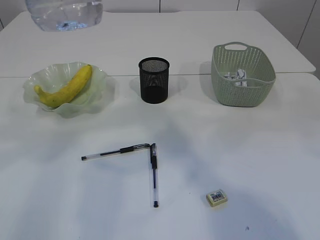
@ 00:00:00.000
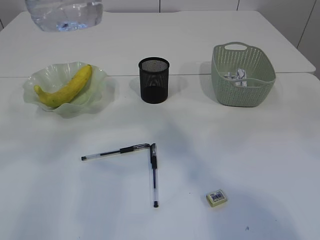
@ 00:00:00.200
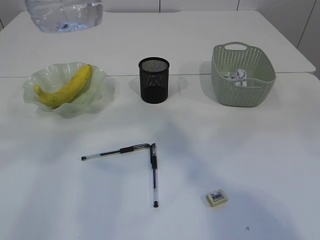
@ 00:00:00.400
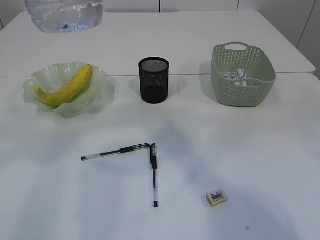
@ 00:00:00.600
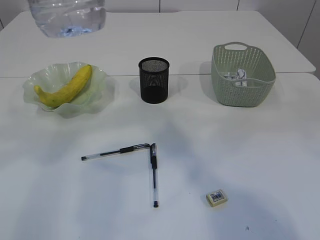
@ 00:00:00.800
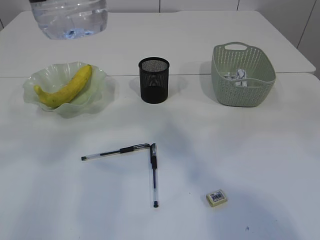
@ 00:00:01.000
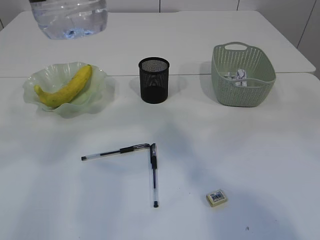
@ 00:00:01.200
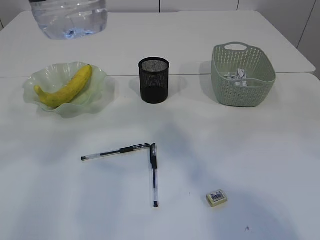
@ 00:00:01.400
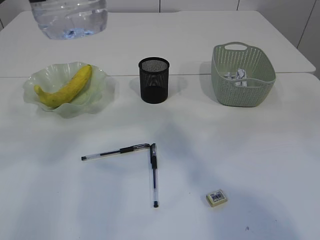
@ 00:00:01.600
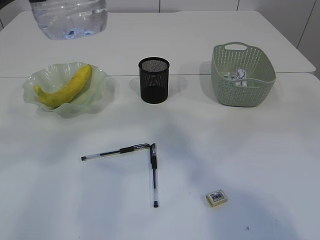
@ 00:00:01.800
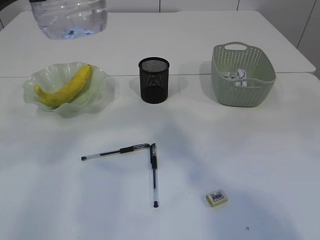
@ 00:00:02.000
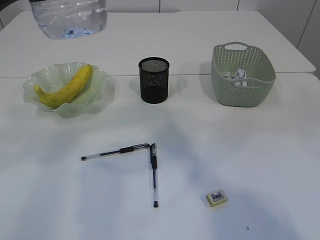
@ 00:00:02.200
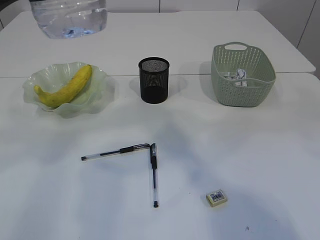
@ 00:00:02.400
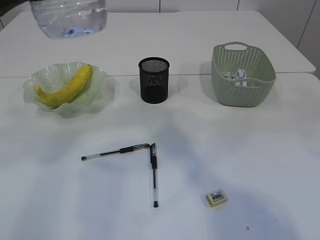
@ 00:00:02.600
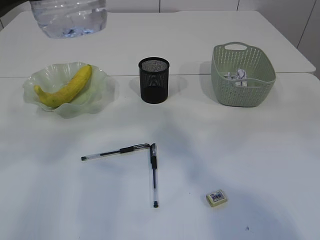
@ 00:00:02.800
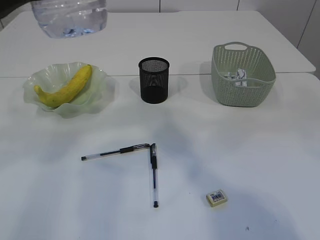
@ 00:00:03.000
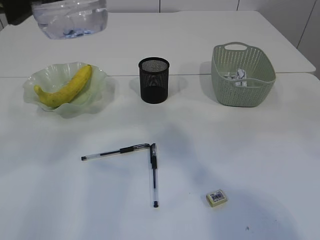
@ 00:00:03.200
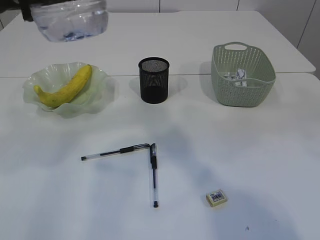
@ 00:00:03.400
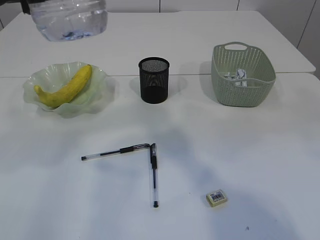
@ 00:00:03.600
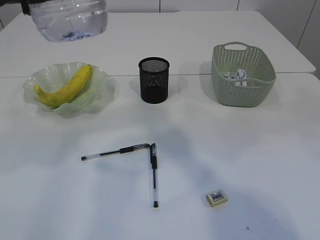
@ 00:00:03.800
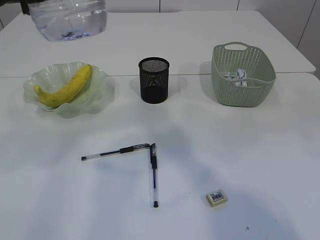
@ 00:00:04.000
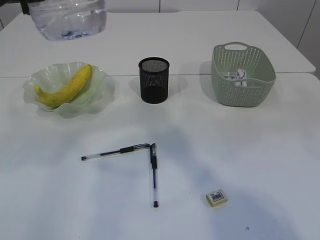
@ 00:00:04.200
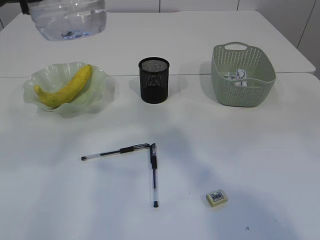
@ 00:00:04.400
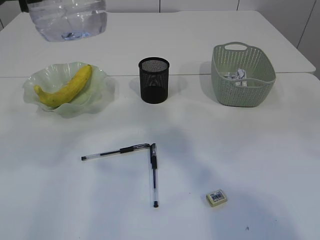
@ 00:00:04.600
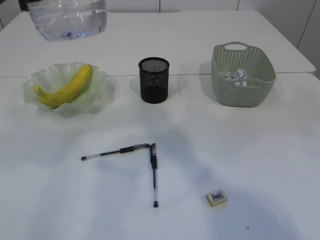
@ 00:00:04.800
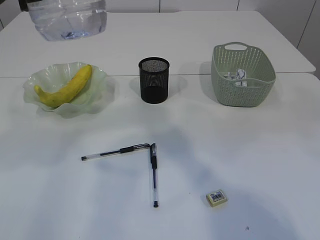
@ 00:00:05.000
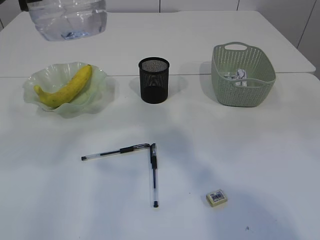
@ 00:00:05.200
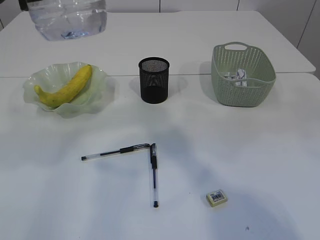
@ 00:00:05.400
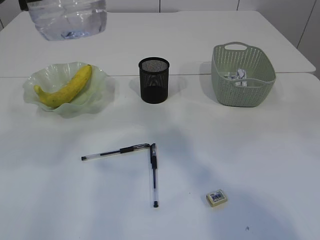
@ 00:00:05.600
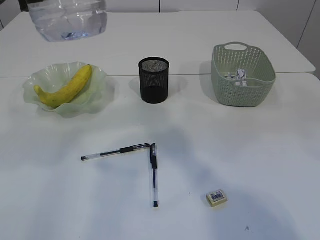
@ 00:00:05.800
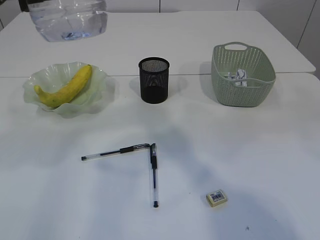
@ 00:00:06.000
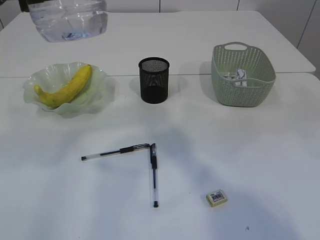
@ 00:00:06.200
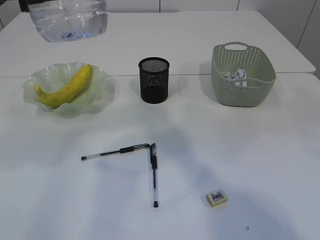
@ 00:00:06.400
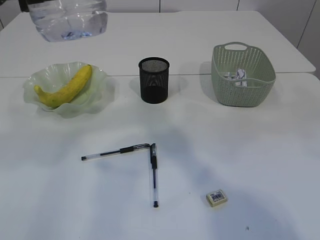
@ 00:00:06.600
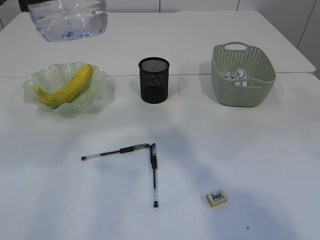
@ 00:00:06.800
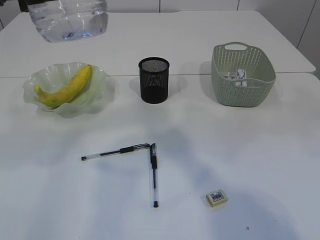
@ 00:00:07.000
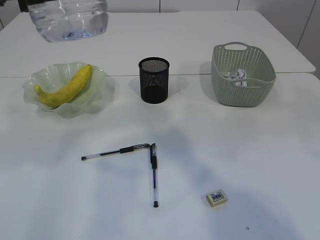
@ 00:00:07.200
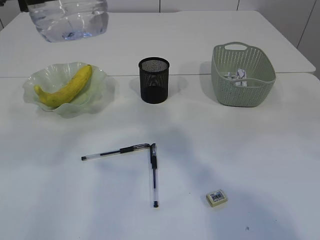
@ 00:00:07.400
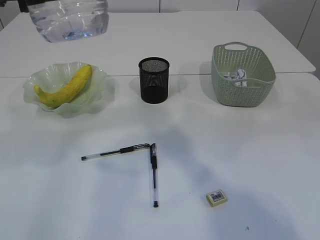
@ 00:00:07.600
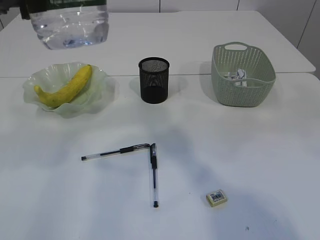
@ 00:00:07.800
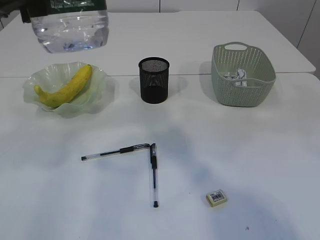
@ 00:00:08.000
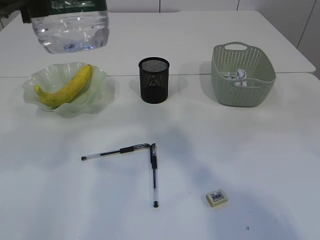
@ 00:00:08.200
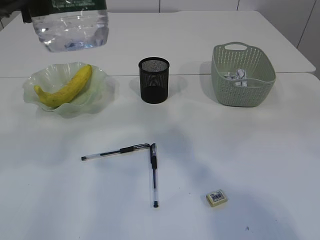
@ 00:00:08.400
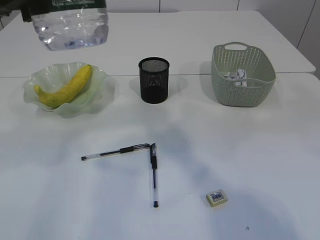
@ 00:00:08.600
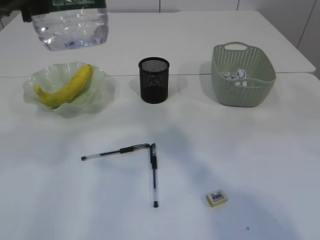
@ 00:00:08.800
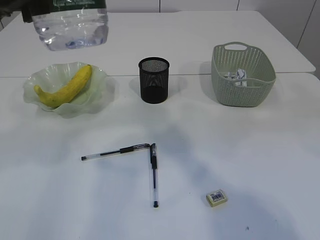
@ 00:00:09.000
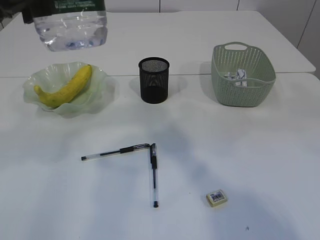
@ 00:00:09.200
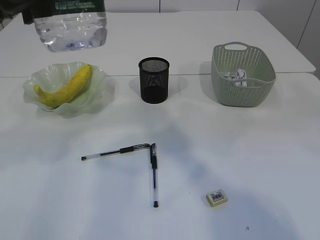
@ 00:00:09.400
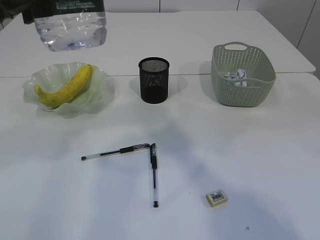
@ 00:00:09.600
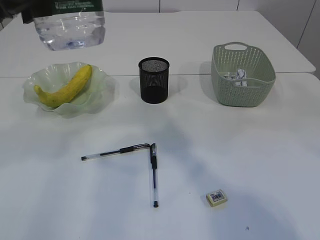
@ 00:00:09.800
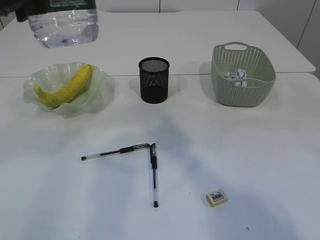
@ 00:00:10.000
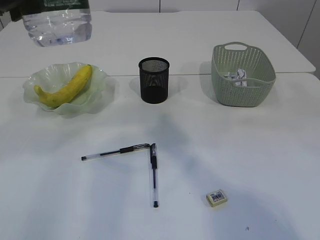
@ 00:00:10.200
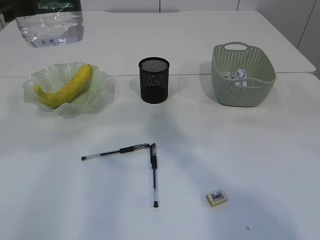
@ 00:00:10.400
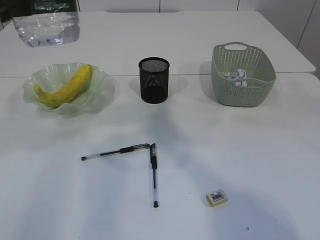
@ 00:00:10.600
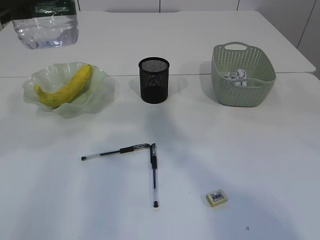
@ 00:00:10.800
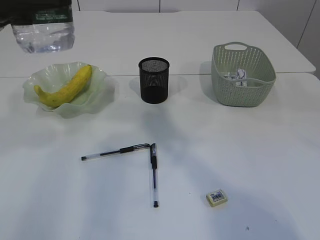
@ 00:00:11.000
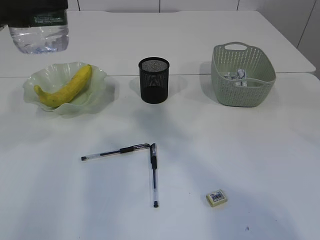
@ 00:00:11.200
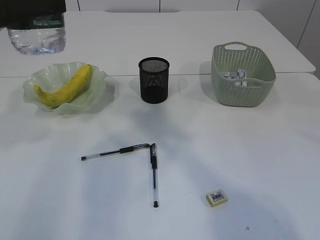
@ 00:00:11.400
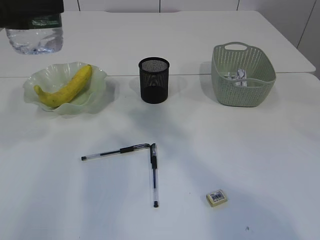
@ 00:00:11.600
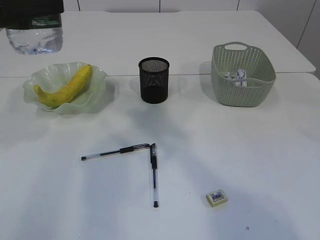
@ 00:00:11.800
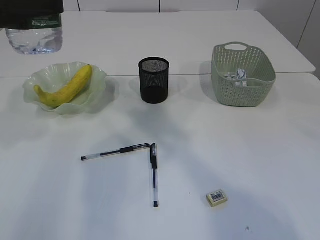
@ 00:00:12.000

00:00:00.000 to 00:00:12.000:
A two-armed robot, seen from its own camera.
Step, 00:00:00.000 to 00:00:10.600: transfer the bottle to the left arm.
00:00:01.600 to 00:00:03.000: Neither gripper changes place.
00:00:04.400 to 00:00:07.600: The two grippers keep their place.
00:00:07.600 to 00:00:10.400: The grippers make only small movements.

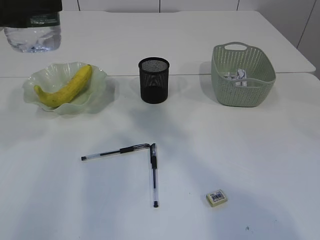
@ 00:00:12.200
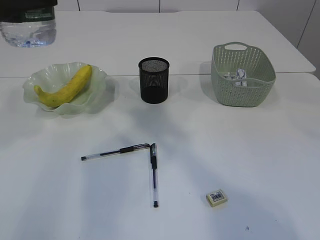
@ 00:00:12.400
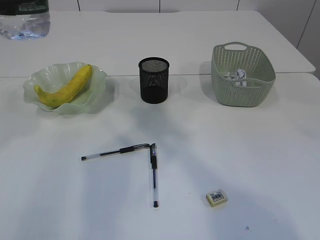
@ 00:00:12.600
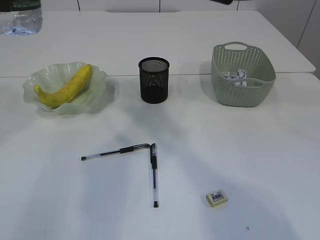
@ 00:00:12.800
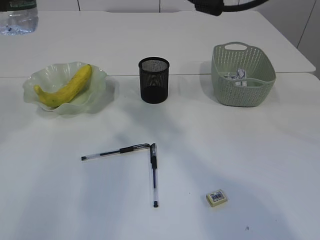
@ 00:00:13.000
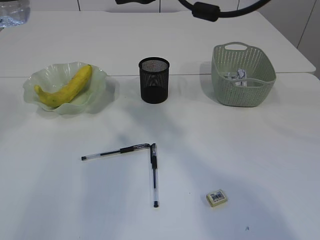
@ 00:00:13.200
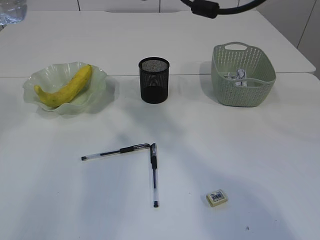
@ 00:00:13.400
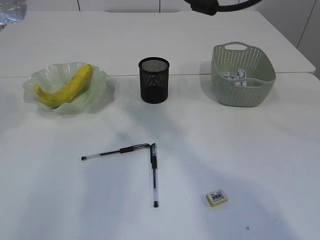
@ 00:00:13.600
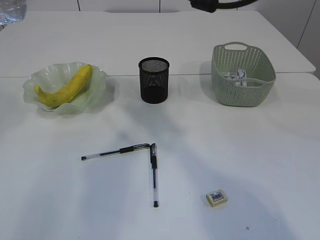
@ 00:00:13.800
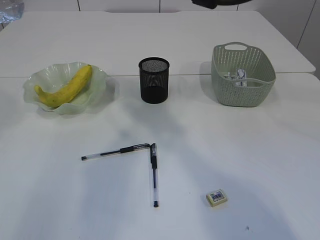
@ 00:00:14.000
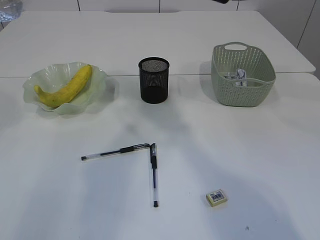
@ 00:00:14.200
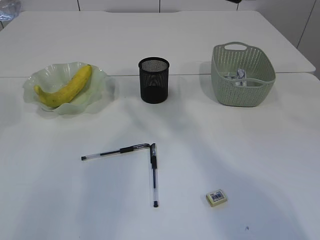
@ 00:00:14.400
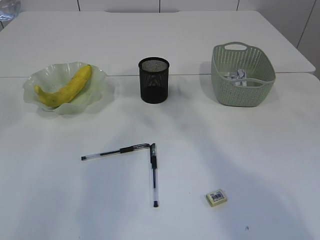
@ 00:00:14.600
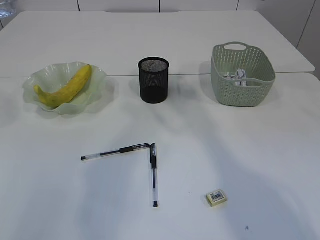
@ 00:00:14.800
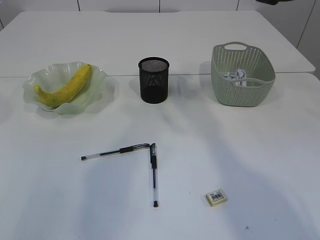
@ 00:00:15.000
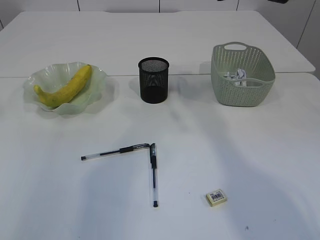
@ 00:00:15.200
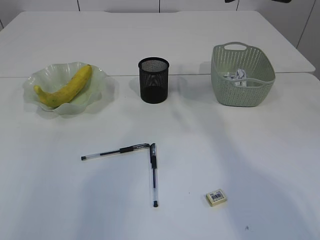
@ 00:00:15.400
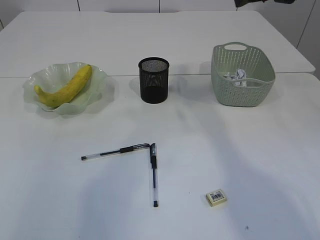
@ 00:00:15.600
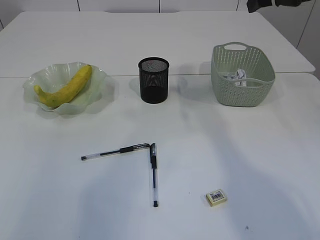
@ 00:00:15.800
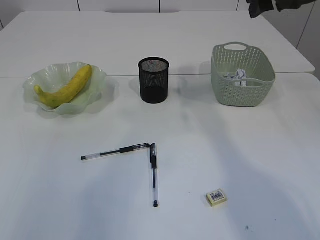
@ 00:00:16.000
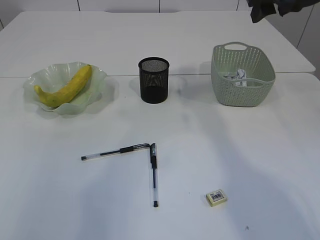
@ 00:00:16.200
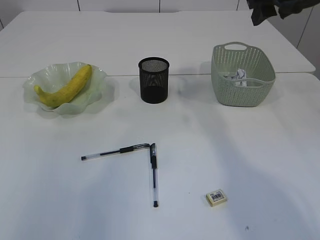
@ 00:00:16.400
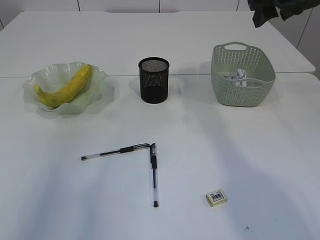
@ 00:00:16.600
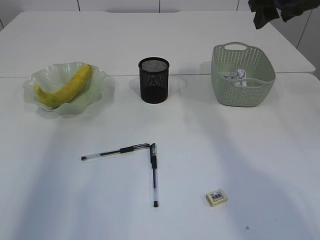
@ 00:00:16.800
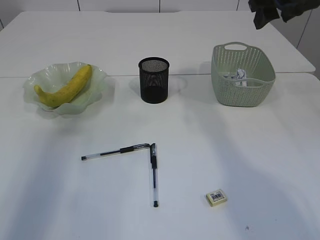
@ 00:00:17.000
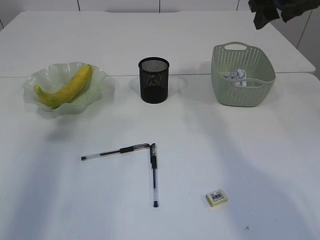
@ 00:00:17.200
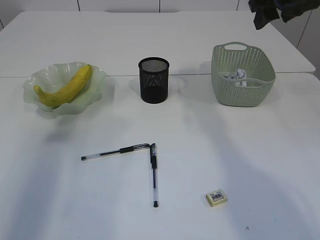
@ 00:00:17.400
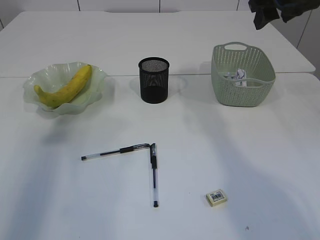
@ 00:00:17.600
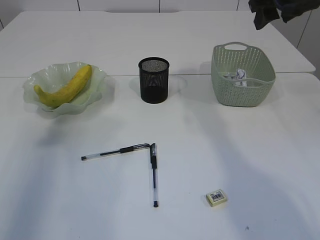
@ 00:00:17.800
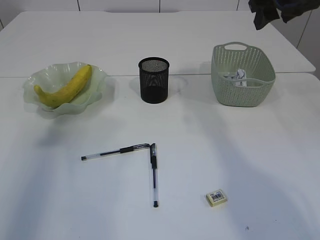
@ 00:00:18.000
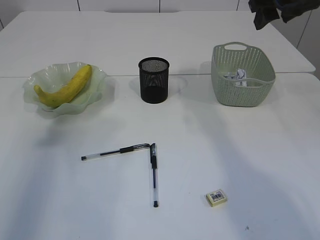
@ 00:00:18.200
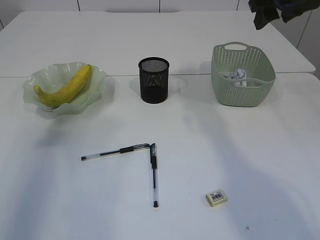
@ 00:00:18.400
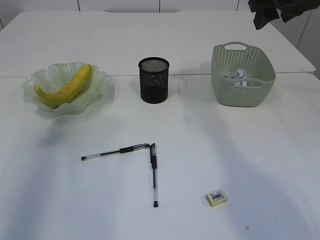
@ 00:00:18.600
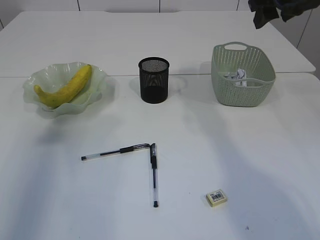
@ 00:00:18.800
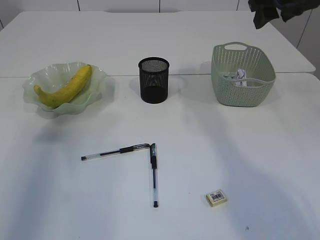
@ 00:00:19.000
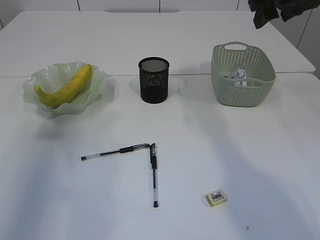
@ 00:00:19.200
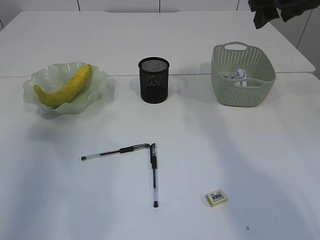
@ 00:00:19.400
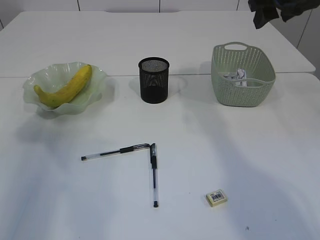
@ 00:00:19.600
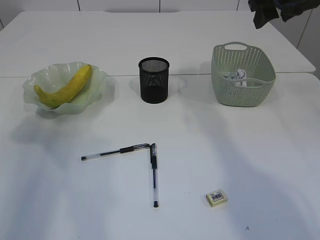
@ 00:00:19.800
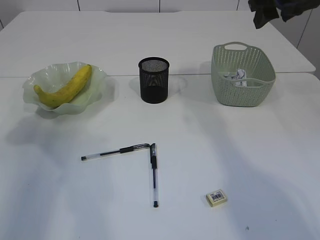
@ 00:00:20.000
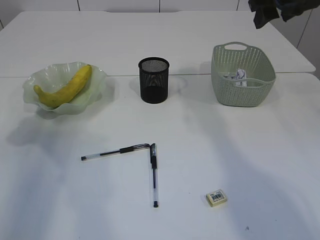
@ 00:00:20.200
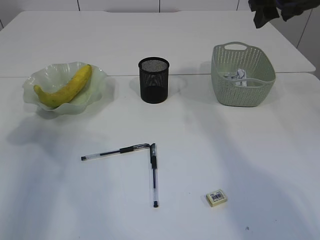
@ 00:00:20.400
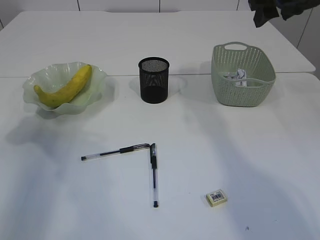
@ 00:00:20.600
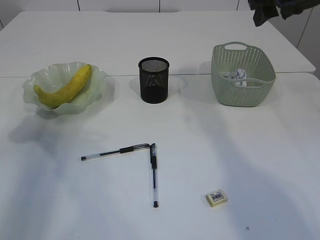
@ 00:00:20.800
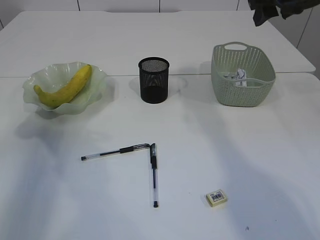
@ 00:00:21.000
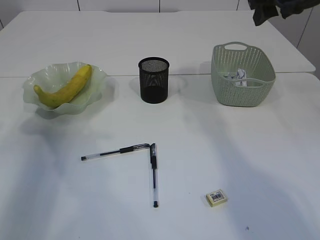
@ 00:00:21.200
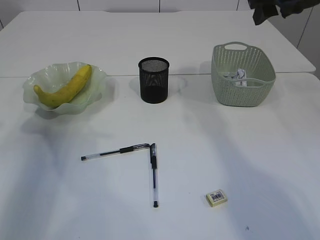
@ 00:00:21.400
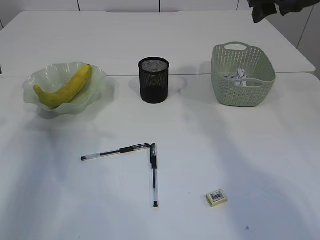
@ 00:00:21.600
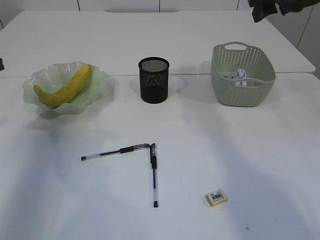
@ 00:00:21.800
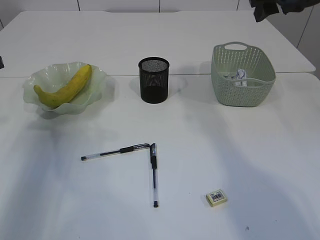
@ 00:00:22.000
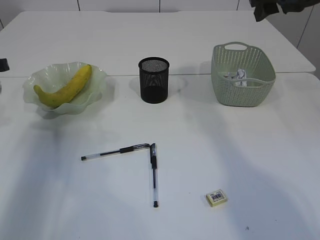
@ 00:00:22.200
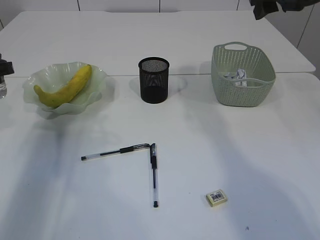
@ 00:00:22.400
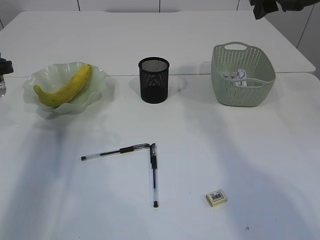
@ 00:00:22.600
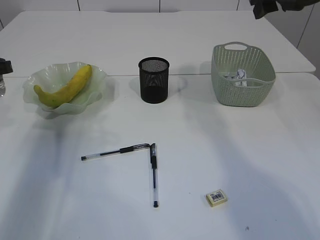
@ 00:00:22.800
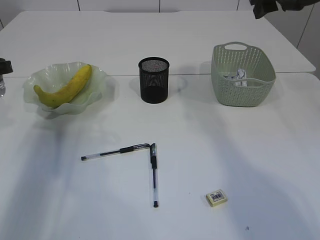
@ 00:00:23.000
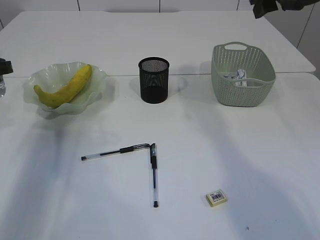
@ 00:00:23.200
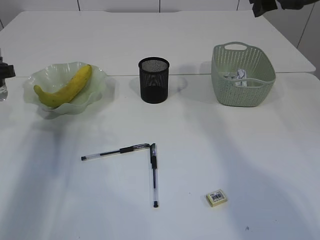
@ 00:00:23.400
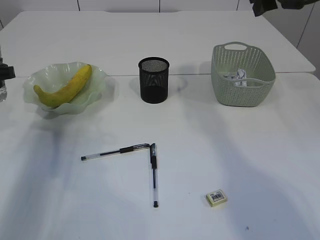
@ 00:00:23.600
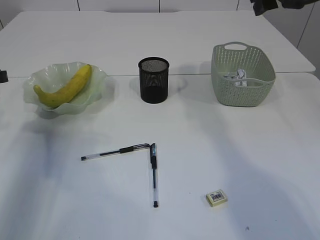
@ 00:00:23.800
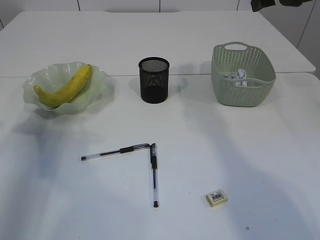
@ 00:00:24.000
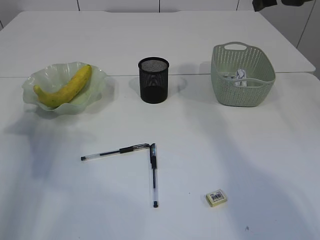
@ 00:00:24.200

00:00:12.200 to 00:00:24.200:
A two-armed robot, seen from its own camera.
00:00:12.200 to 00:00:13.800: The right gripper shifts by roughly 5 cm.
00:00:13.800 to 00:00:15.200: The right gripper shifts about 15 cm to the right.
00:00:16.600 to 00:00:18.200: The left gripper moves downward, approximately 5 cm.
00:00:18.200 to 00:00:19.800: The left gripper heads downward and forward, covering approximately 10 cm.
00:00:21.200 to 00:00:24.200: The grippers stay close to where they were, moving slightly.
